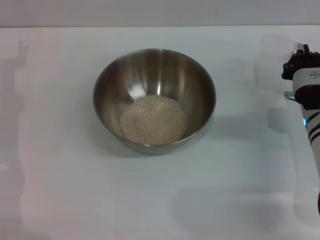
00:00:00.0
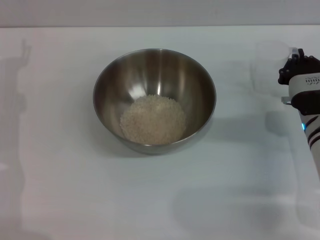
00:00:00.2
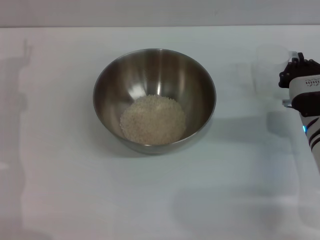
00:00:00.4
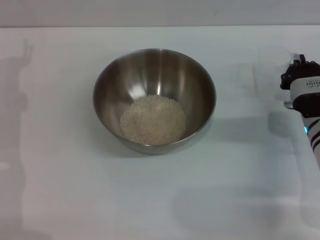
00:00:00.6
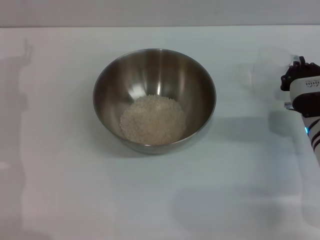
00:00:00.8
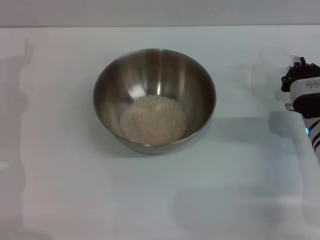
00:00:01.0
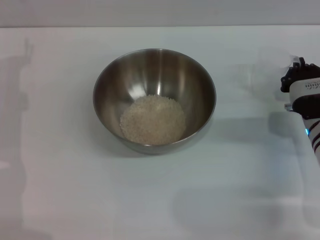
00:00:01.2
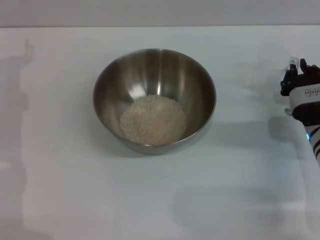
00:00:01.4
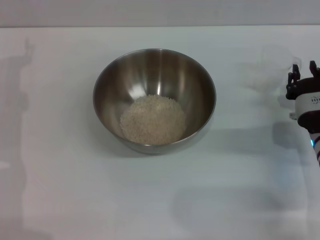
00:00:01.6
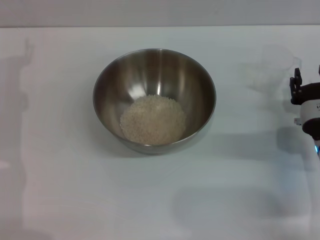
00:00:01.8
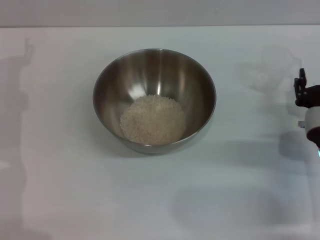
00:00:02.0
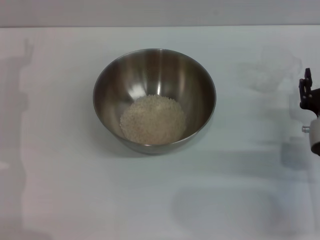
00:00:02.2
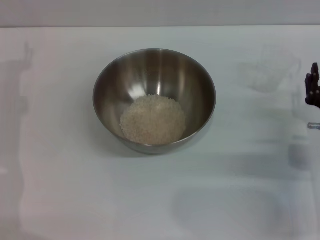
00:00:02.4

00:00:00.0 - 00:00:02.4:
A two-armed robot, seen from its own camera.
Task of the whole recording: Place the bowl in the middle of the table with one hand and pour the rice from the grain cup into it with the other hand.
Step, 00:00:00.0 - 00:00:02.0: Place the cup on the table with the right gripper.
00:00:00.0 - 00:00:01.2: The grippers move only a little.
00:00:01.2 - 00:00:02.4: The right gripper shifts about 5 cm backward, and opens up.
